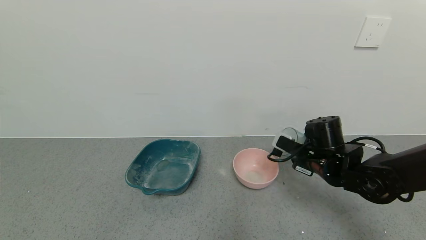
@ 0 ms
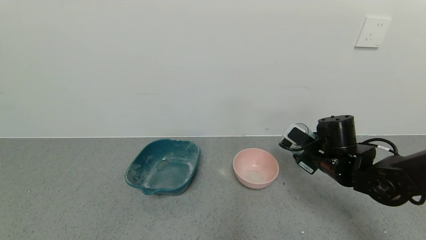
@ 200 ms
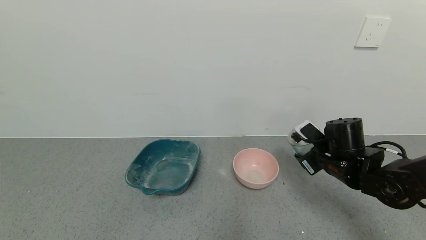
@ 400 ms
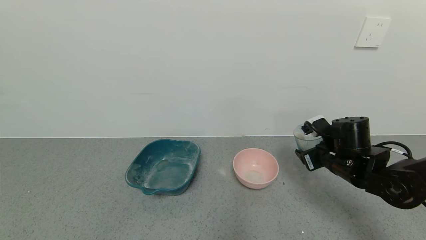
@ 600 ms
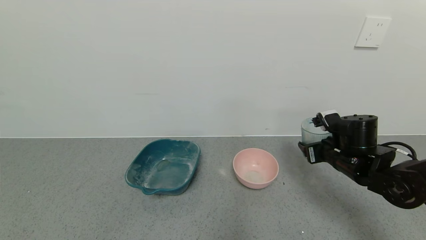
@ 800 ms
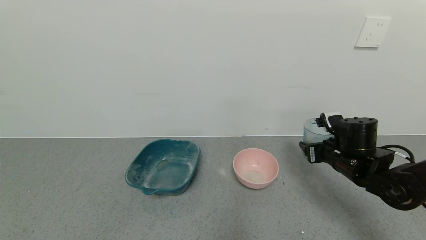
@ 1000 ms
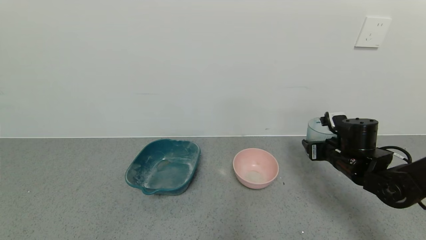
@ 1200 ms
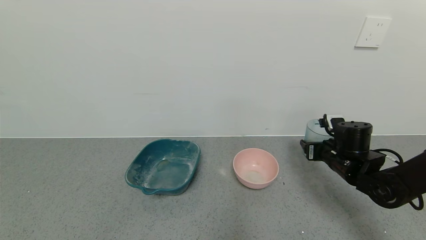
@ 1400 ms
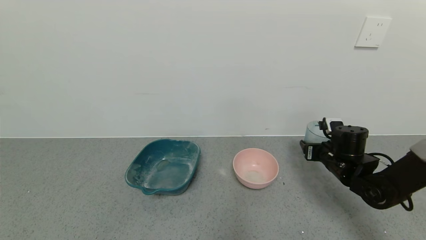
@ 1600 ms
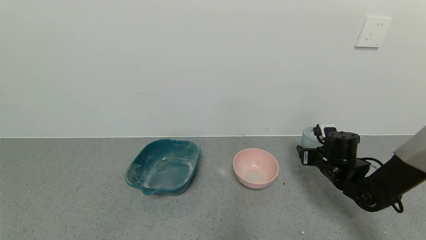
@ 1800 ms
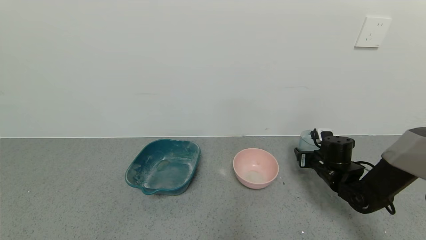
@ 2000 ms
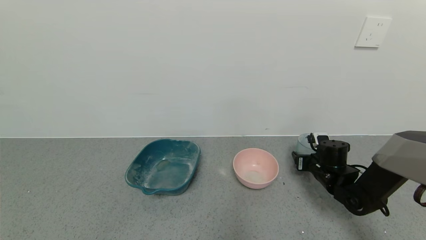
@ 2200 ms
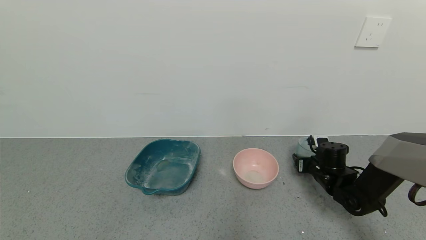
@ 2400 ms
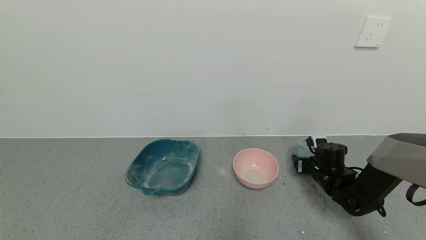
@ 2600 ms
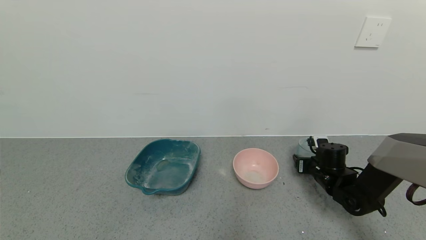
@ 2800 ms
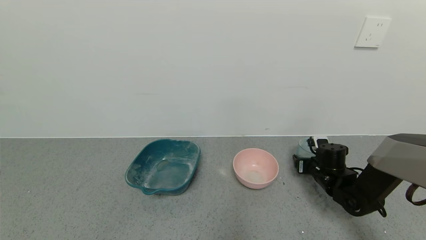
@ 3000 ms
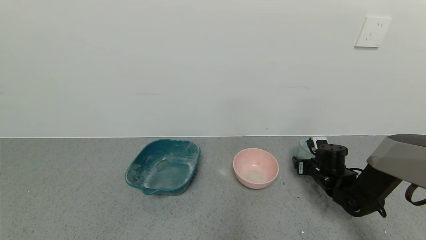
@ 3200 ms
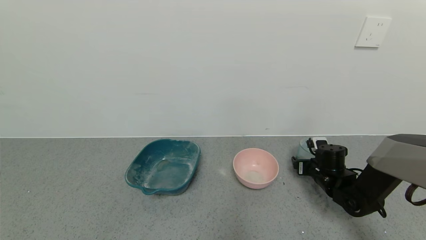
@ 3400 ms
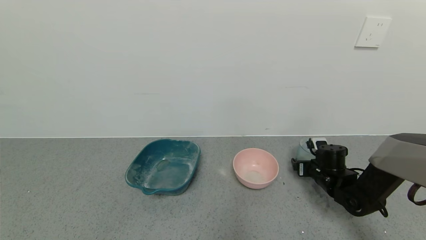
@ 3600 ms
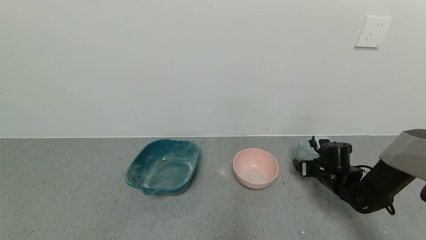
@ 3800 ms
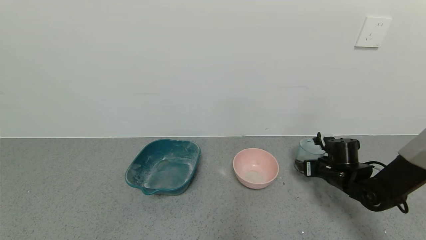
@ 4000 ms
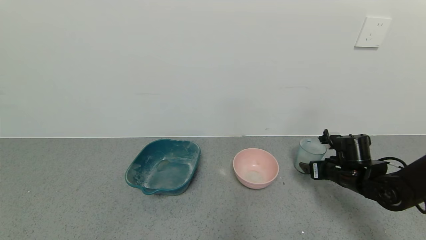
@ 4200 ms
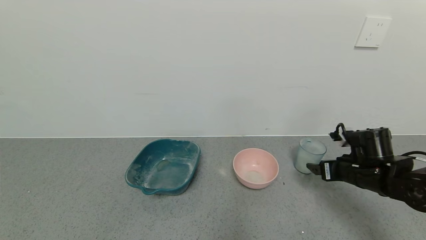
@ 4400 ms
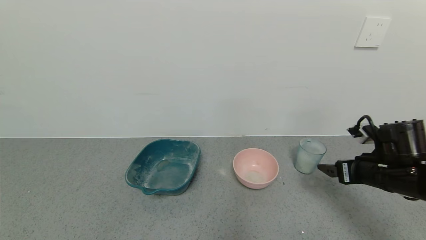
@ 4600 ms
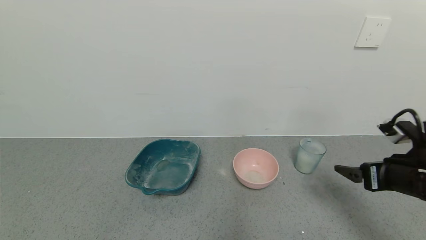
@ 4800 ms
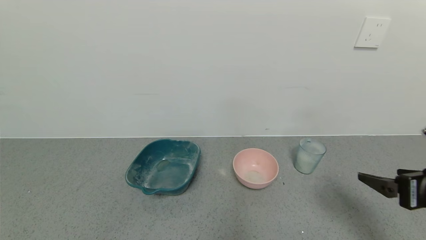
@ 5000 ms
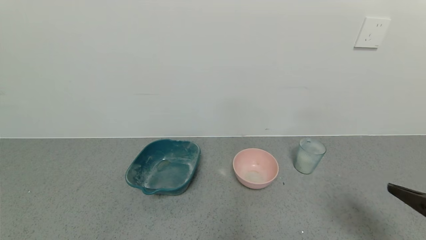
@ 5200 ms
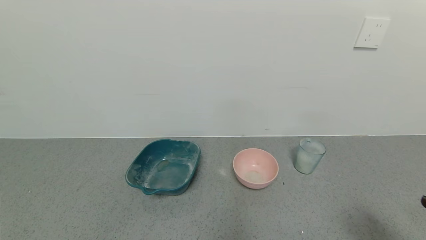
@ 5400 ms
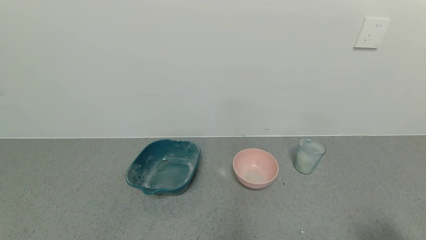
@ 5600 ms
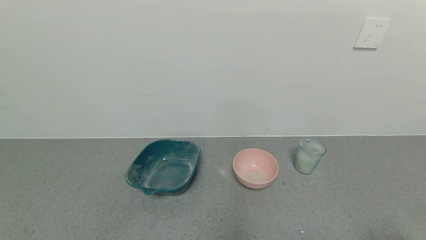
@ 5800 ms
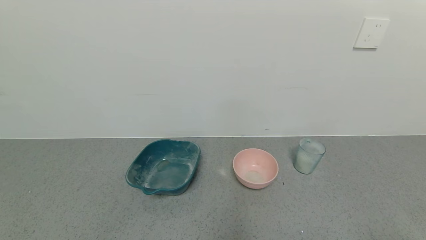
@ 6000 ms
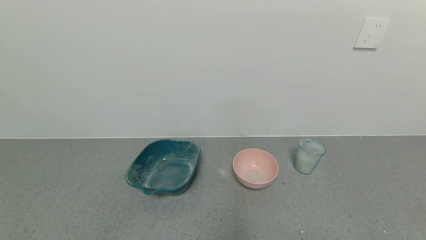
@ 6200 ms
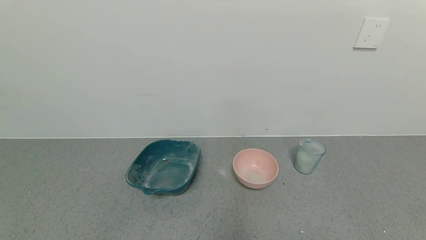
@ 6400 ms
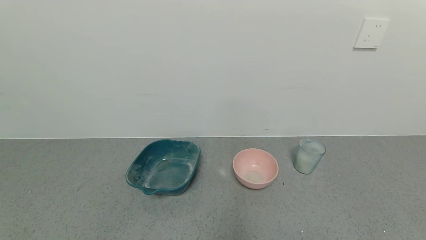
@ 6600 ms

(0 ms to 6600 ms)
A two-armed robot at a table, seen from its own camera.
Task of the whole recording: use a gripper to pick up the cup and pour the powder into a bowl or tray.
Step, 0 ms - 4000 ms: Place the glass cup down with the right gripper.
0 ms - 1600 ms: The right gripper is displaced to the right by roughly 5 cm.
1600 ms - 3200 ms: The right gripper heads downward, covering approximately 5 cm, and opens.
3200 ms - 5000 ms: The right gripper travels backward and upward by about 30 cm, and opens.
5000 ms - 6600 ms: The right gripper goes roughly 20 cm backward and downward.
